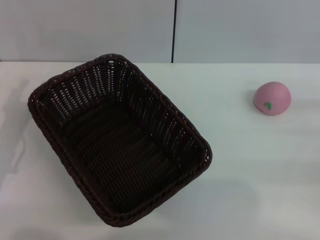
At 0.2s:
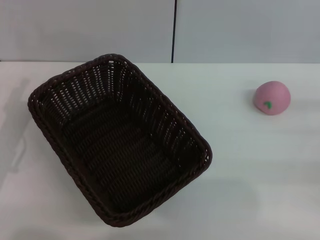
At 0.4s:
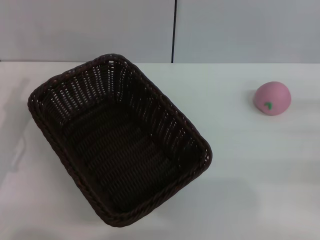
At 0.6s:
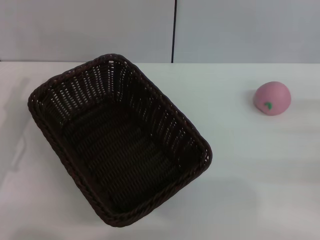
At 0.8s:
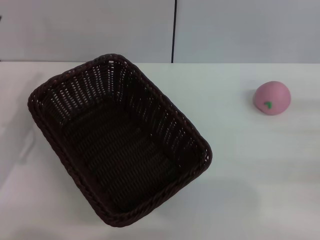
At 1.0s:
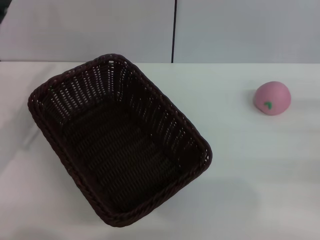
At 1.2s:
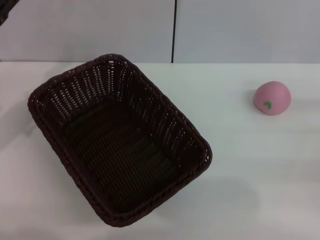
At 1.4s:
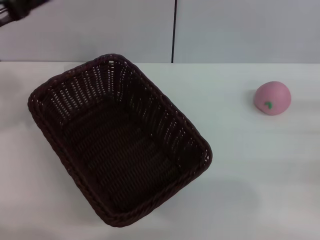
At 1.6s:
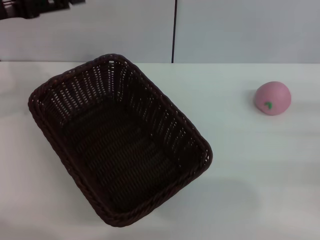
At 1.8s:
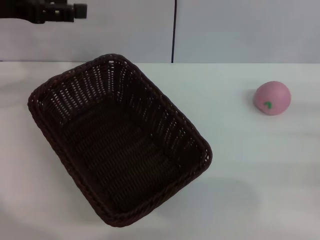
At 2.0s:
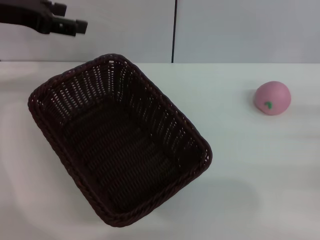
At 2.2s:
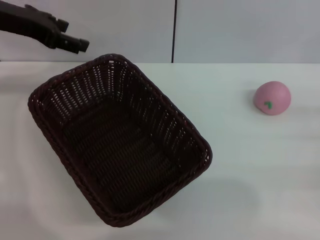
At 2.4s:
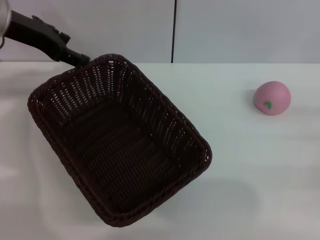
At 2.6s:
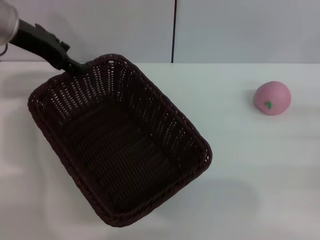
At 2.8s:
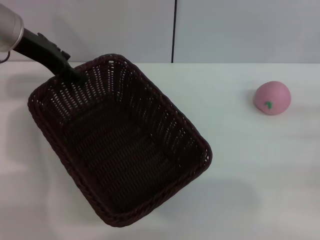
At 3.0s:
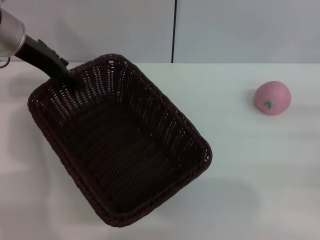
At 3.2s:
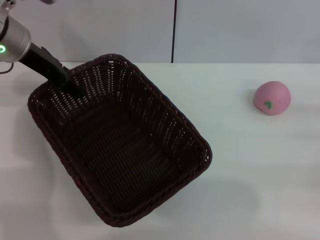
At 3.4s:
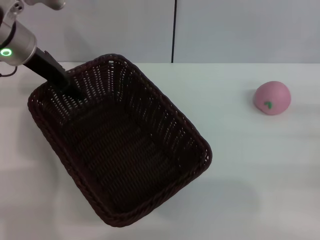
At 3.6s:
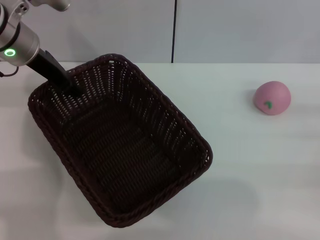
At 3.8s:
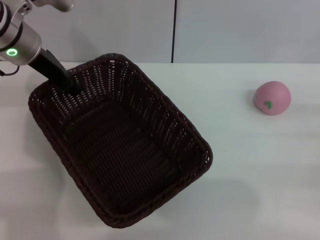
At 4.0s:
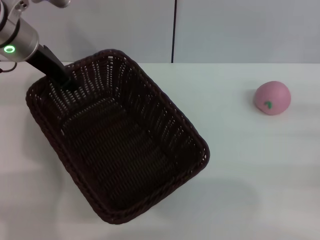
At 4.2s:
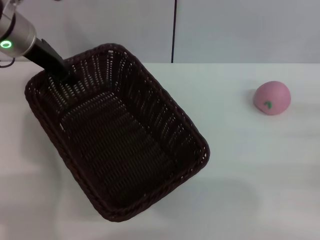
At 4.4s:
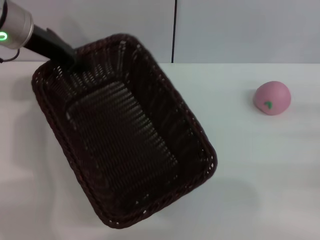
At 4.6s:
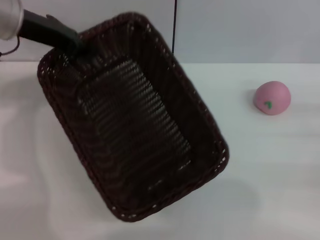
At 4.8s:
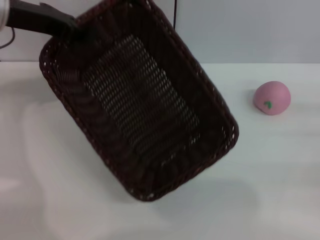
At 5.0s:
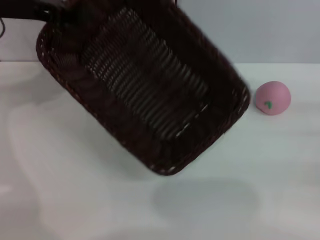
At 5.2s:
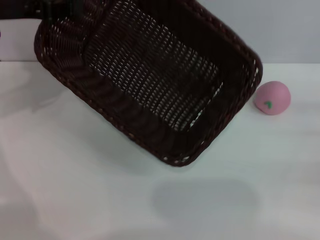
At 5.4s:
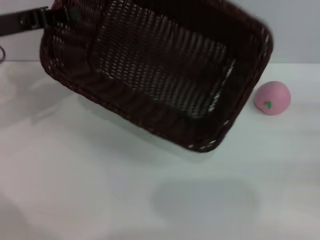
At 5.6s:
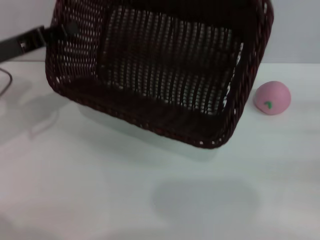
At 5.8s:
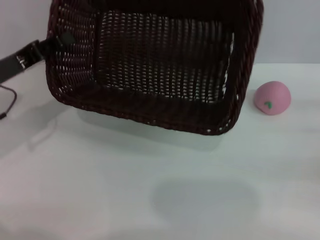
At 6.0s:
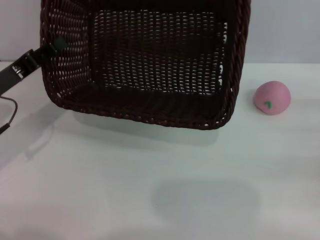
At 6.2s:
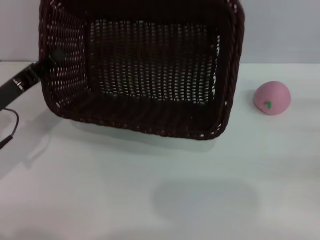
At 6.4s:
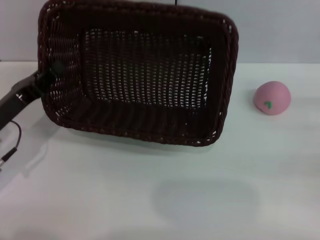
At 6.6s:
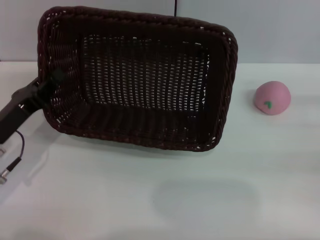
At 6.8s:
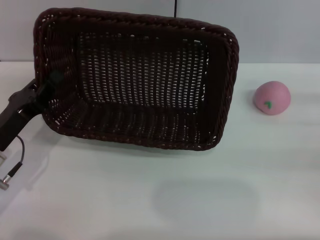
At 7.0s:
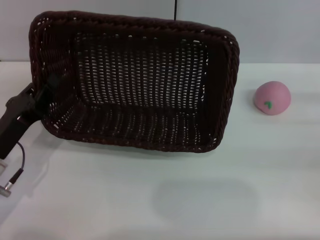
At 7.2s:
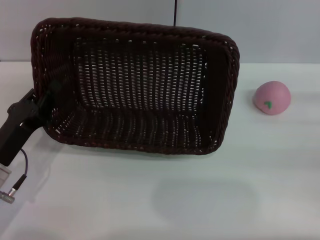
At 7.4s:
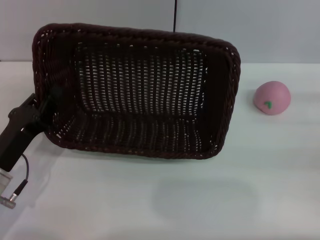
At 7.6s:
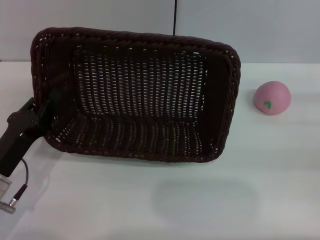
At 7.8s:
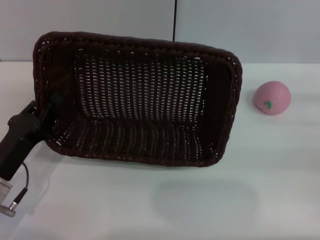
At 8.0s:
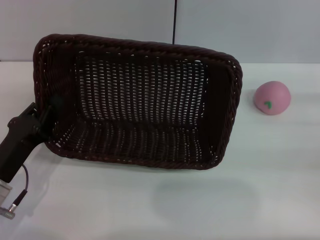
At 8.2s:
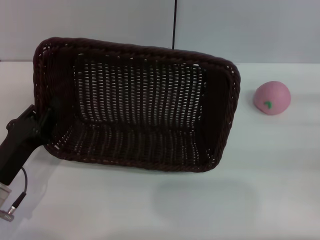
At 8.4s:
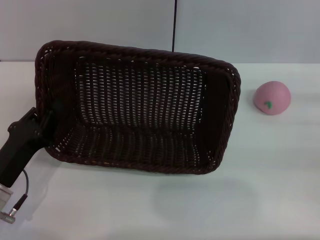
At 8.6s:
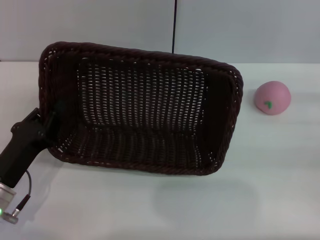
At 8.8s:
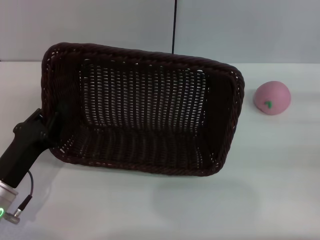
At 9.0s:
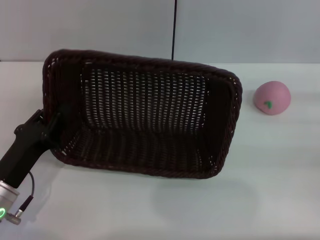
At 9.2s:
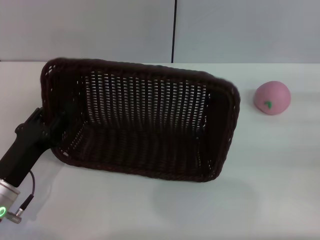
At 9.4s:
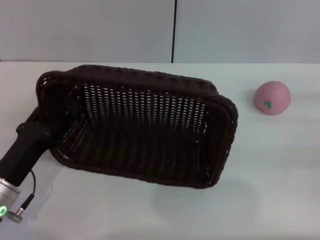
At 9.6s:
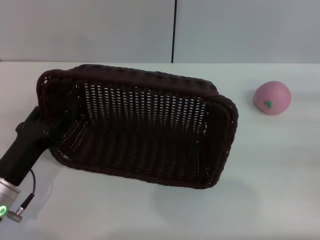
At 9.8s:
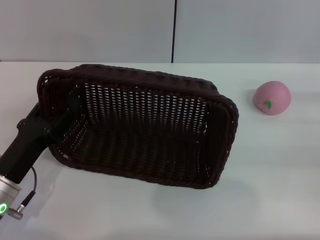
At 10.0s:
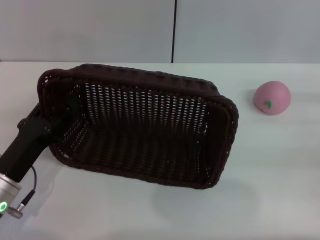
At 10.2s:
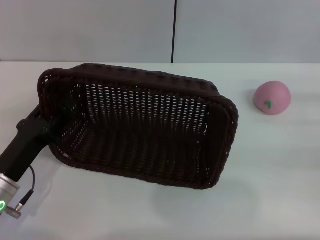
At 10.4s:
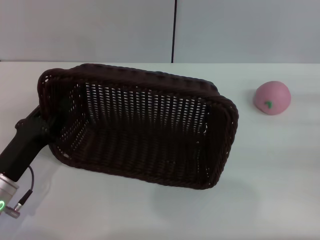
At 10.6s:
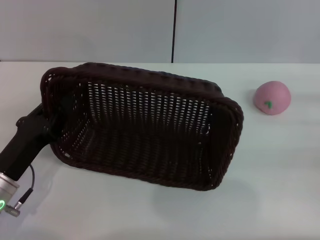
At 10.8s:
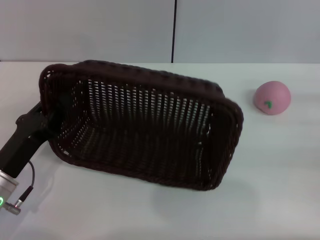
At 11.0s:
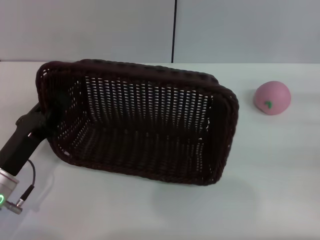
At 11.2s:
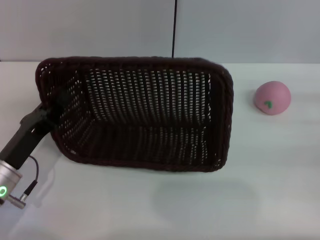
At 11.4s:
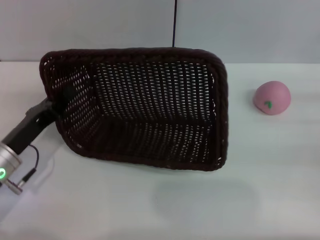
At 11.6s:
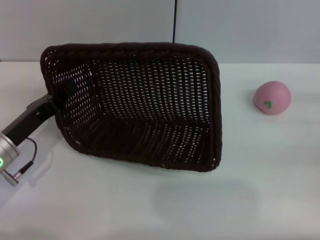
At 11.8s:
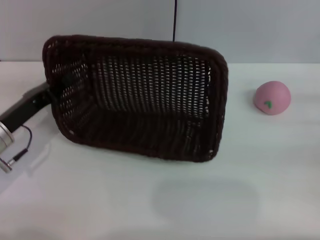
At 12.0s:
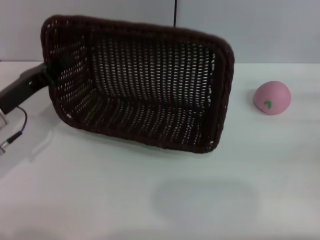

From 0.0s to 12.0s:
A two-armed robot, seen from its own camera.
Step, from 0.0s to 4.0s: Pick up the dark basket with the left gripper.
From 0.0s to 1.6s: The left gripper shifts roughly 20 cm upward and forward.
From 1.6s to 3.0s: The left gripper travels to the right and forward by some 10 cm.
From 3.0s to 4.4s: The left gripper closes up.
From 4.4s to 6.0s: The left gripper shifts about 15 cm downward, backward and to the left.
From 6.0s to 7.6s: The left gripper goes approximately 10 cm backward and downward.
From 7.6s to 9.0s: The grippers move only a little.
From 9.0s to 10.4s: The left gripper opens its fingers.
From 10.4s to 12.0s: The left gripper travels forward by approximately 10 cm, and closes.

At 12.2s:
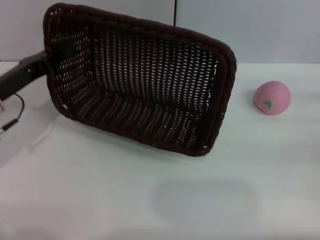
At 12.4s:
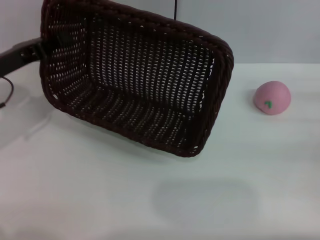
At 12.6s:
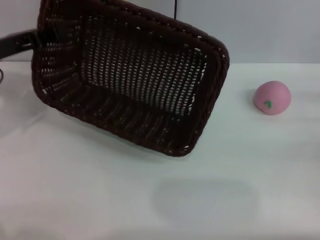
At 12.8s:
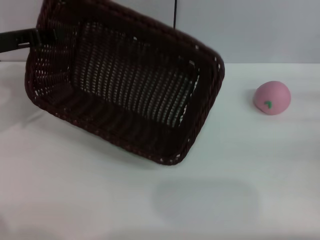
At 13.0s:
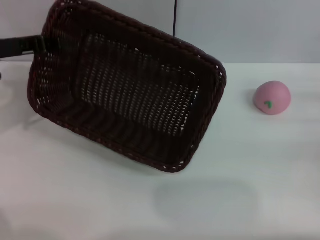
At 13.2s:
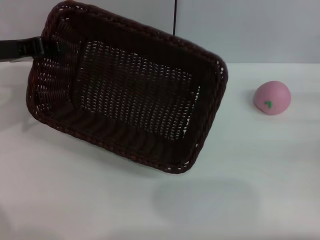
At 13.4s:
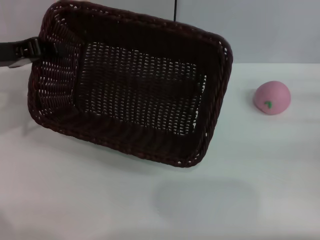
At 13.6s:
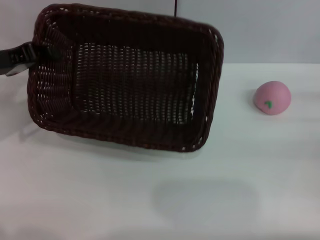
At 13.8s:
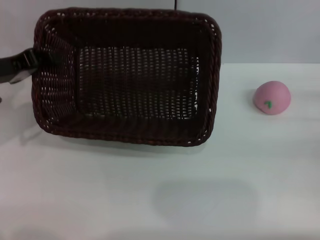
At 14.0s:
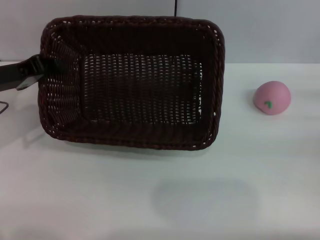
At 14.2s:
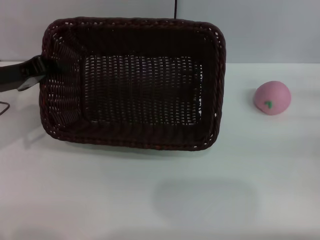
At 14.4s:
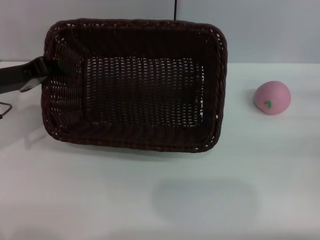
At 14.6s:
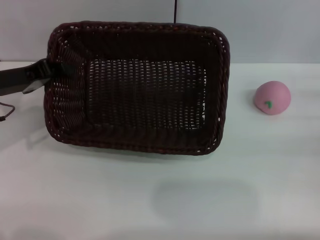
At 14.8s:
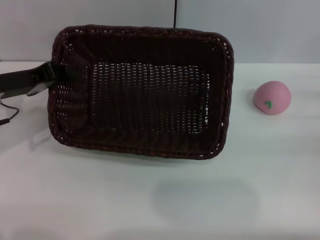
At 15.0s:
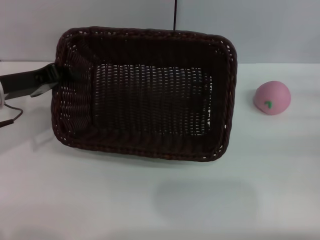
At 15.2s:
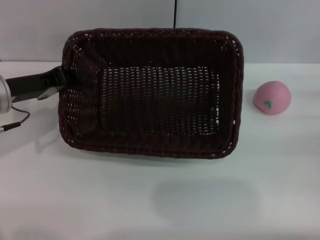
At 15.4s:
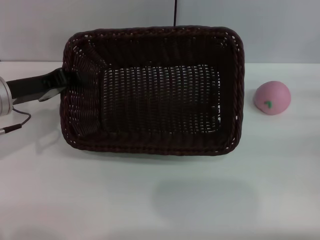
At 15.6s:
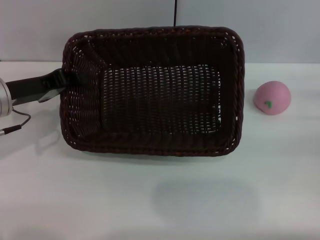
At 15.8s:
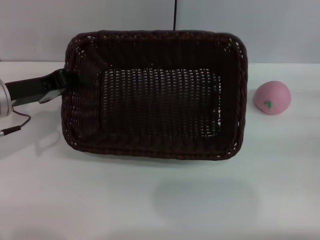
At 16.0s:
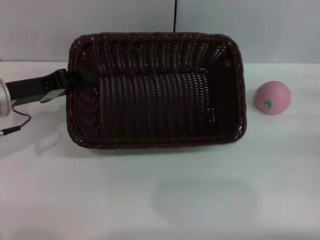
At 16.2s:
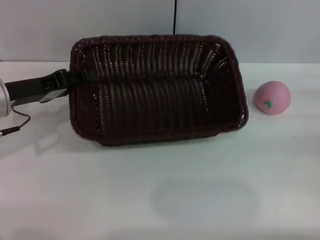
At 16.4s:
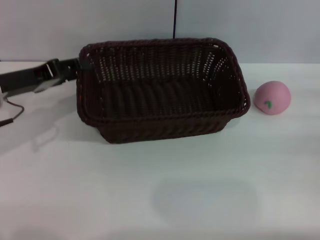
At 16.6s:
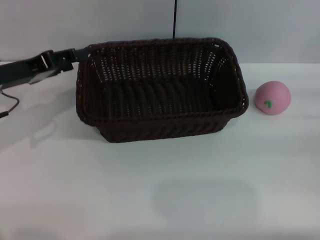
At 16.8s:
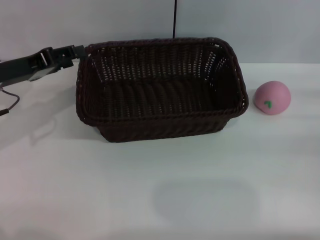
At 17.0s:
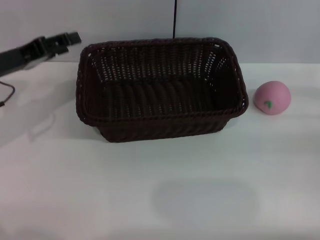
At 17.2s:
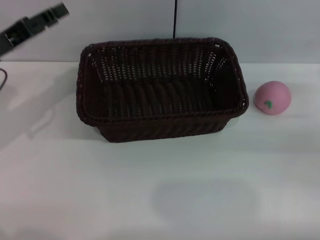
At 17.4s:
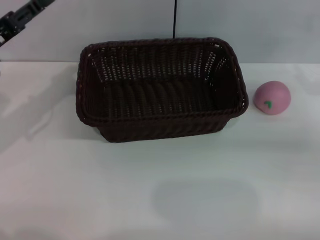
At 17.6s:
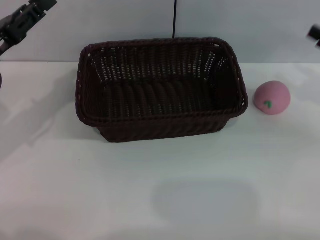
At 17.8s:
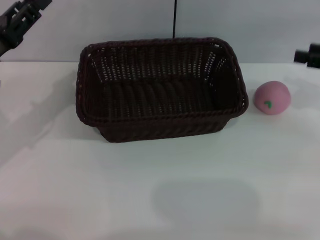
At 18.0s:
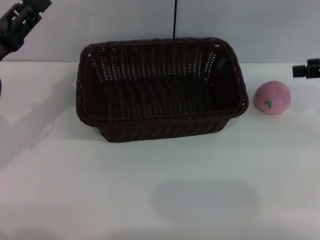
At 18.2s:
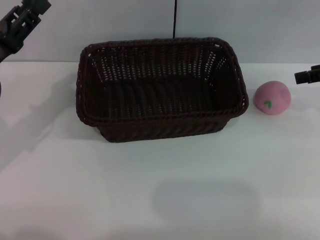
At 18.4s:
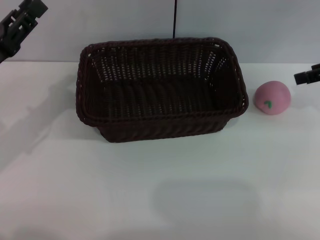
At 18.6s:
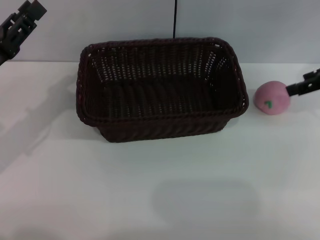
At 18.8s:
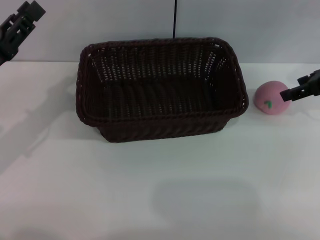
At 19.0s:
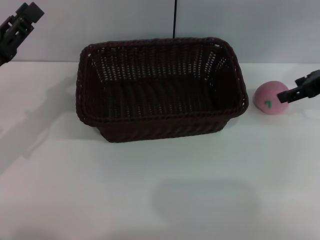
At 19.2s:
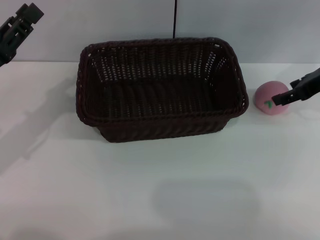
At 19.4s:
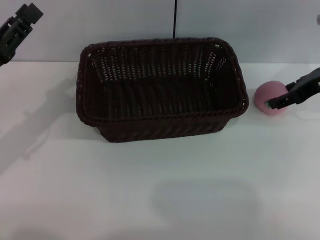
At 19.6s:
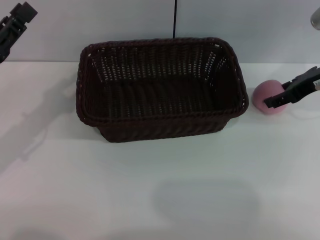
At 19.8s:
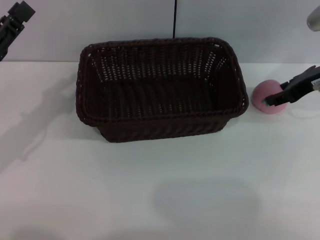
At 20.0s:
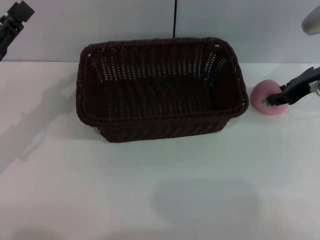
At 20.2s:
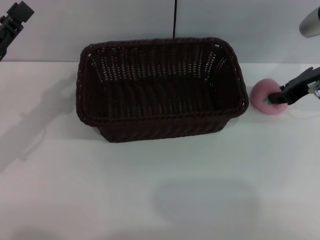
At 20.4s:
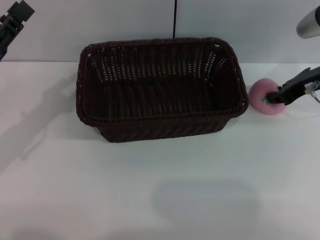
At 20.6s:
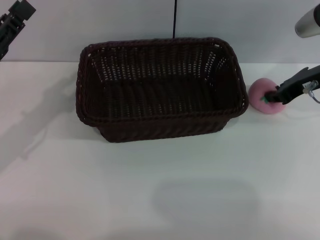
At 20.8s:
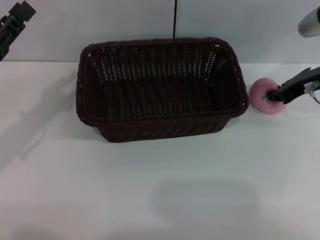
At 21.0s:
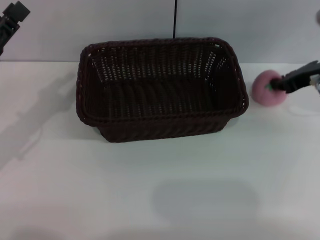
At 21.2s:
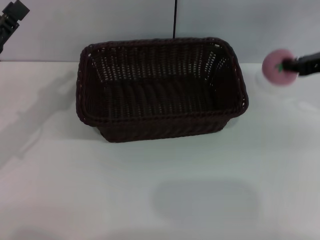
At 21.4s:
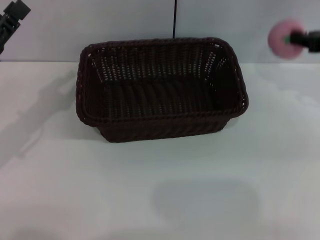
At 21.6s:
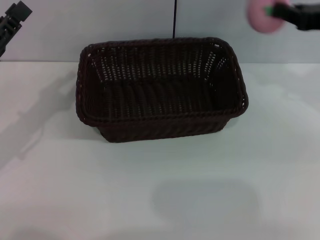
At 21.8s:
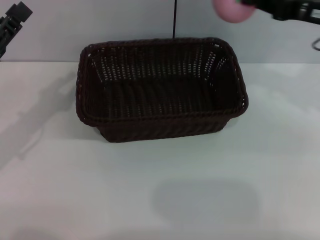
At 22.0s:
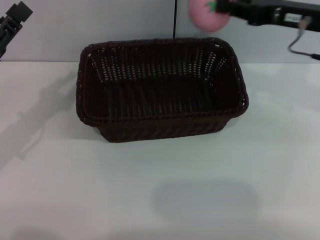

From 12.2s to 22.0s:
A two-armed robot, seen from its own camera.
Step, from 17.0s to 21.2s: Pick up the peach with the left gripper.
From 12.2s to 13.6s: The left gripper heads upward, covering approximately 5 cm.
From 13.6s to 15.0s: There are only small adjustments of the grippers.
From 15.0s to 16.4s: The left gripper opens.
From 16.4s to 17.8s: The right gripper heads upward, covering some 10 cm.
From 17.8s to 19.2s: The right gripper is displaced to the left and forward by roughly 10 cm.
From 19.2s to 20.6s: The right gripper closes up.
From 20.6s to 22.0s: The right gripper shifts about 5 cm upward, and goes to the right and returns, approximately 5 cm each way.
